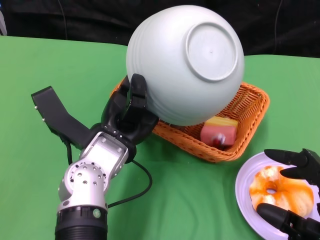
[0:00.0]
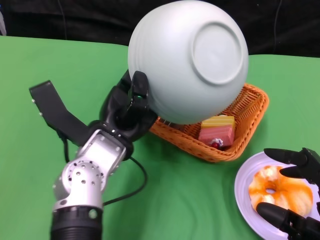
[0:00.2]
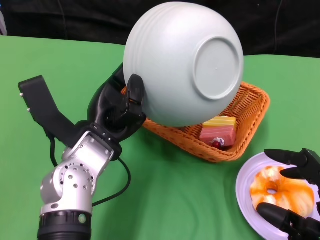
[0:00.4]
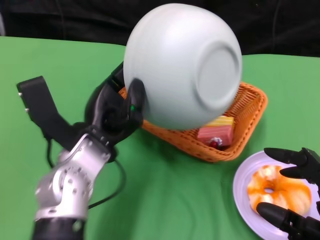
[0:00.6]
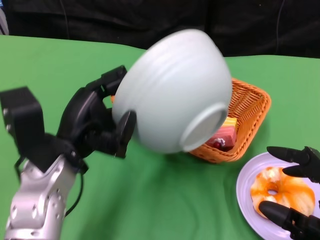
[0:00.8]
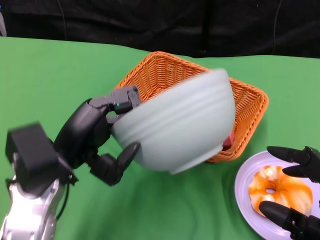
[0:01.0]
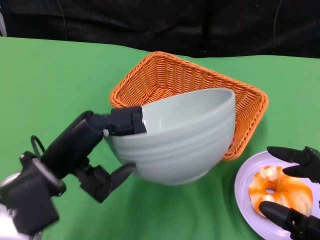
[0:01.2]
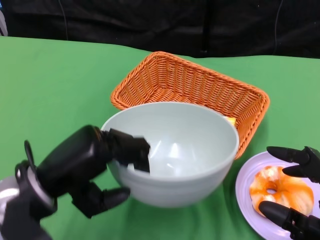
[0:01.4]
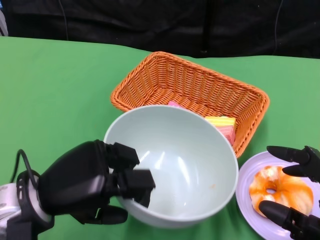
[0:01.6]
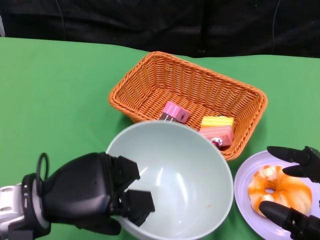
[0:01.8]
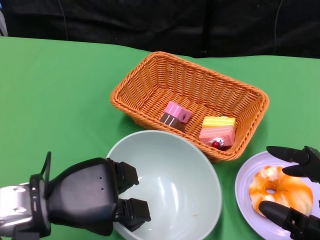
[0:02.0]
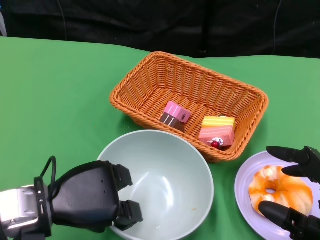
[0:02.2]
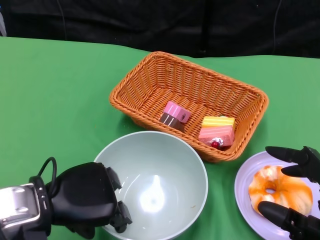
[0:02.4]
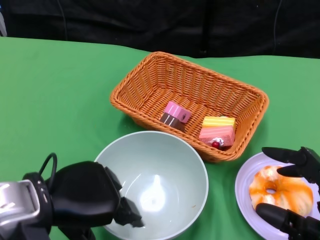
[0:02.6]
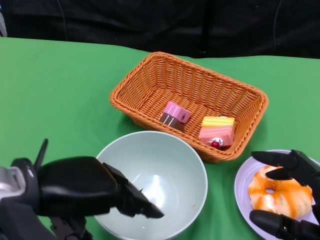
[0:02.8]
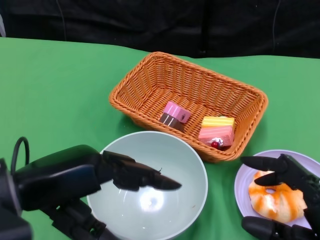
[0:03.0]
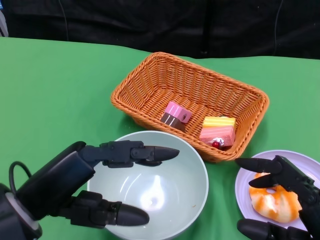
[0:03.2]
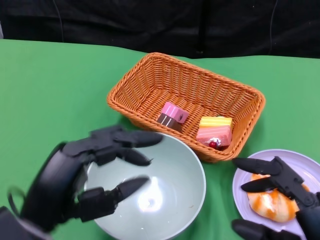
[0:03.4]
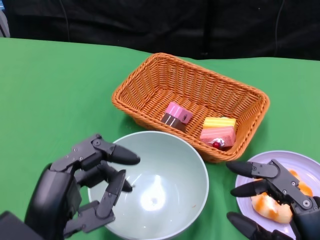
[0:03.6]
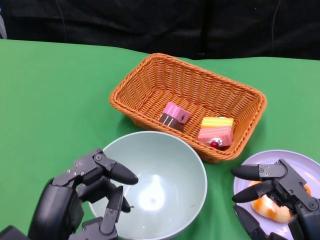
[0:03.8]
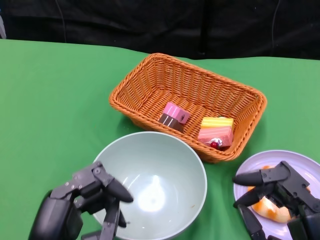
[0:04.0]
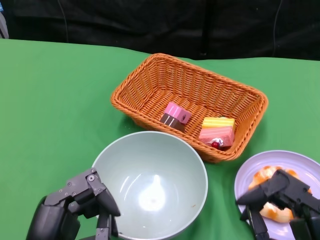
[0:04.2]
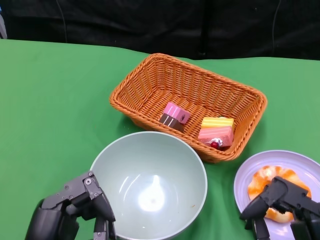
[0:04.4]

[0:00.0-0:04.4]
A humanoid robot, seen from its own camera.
Step, 0:00.4 to 0:02.6: Place the bowl on the table with the left gripper.
0:00.0 to 0:01.4: The left hand travels to the left and backward by approximately 10 cm.
0:01.4 to 0:03.0: The left hand moves upward, about 5 cm.
0:03.0 to 0:04.4: The left hand goes some 15 cm downward and backward.
